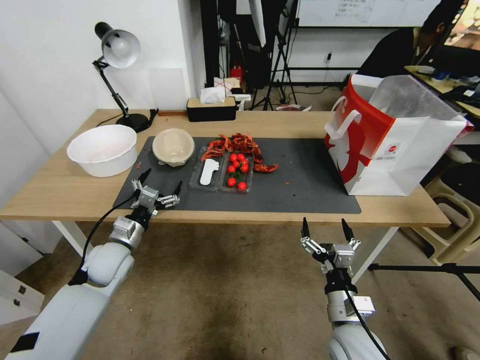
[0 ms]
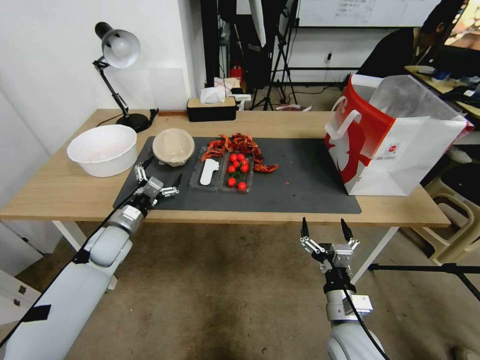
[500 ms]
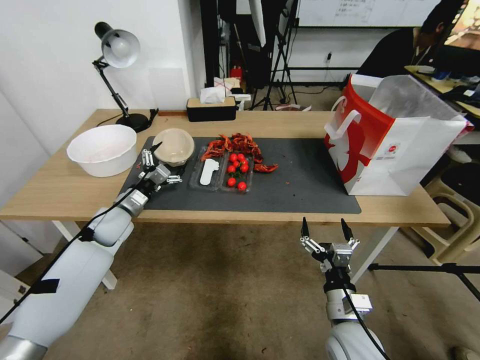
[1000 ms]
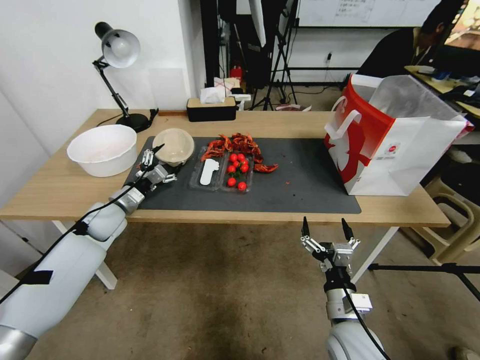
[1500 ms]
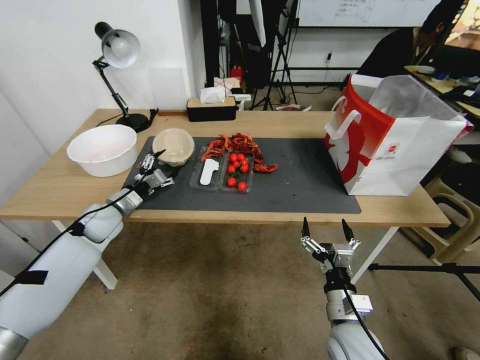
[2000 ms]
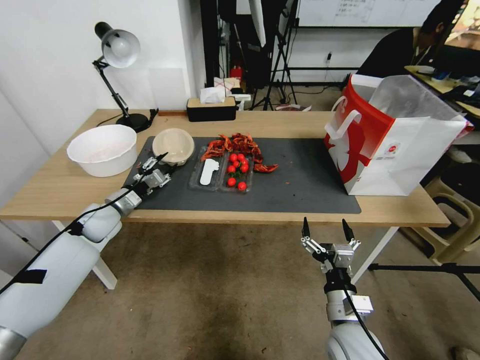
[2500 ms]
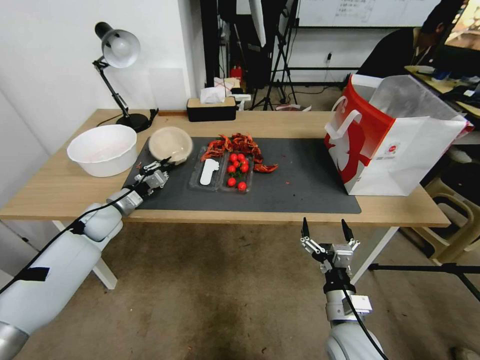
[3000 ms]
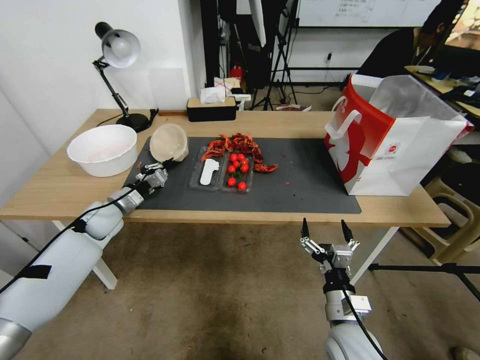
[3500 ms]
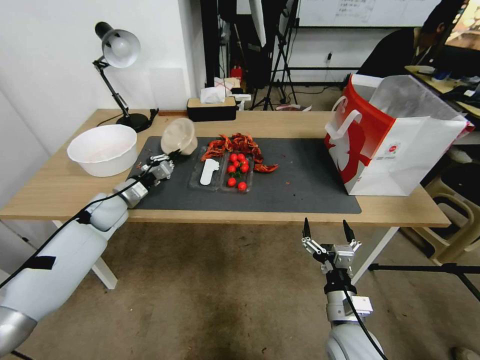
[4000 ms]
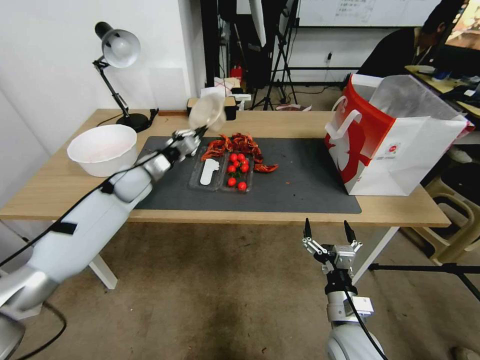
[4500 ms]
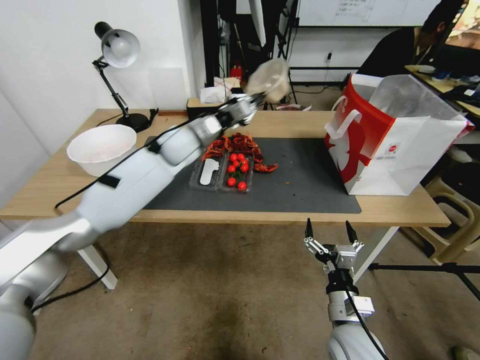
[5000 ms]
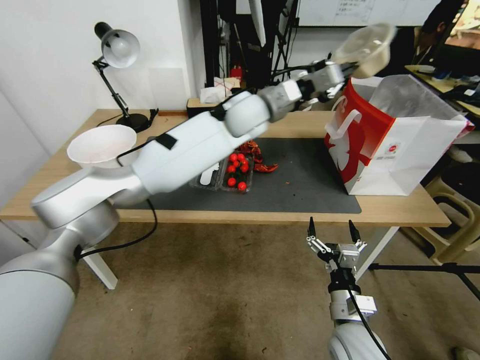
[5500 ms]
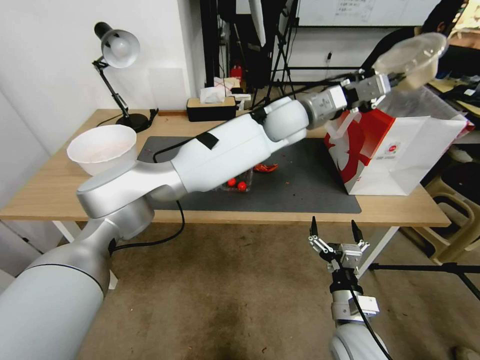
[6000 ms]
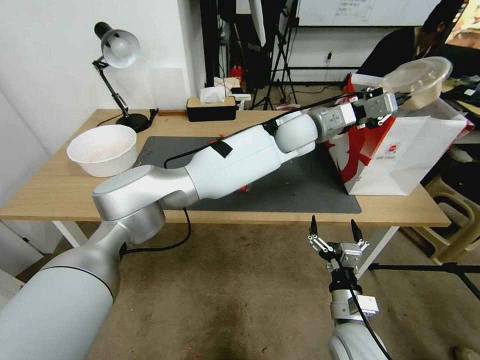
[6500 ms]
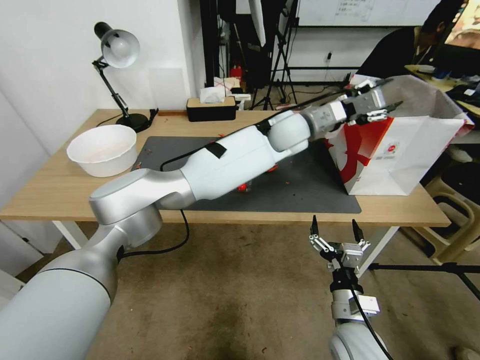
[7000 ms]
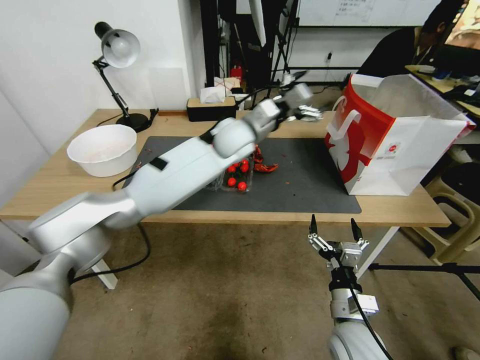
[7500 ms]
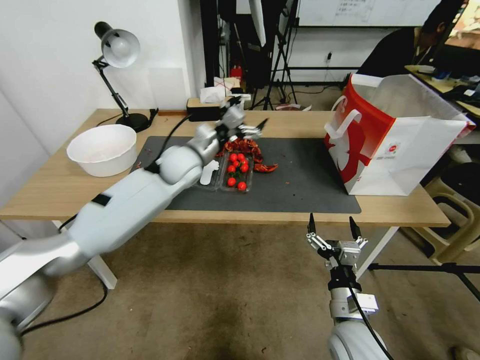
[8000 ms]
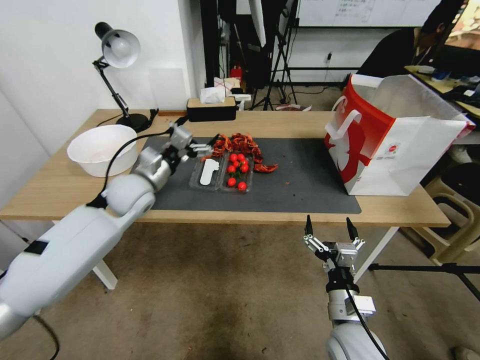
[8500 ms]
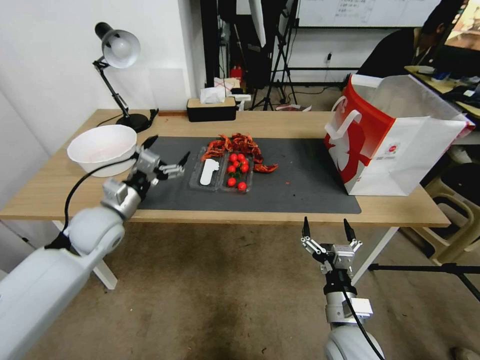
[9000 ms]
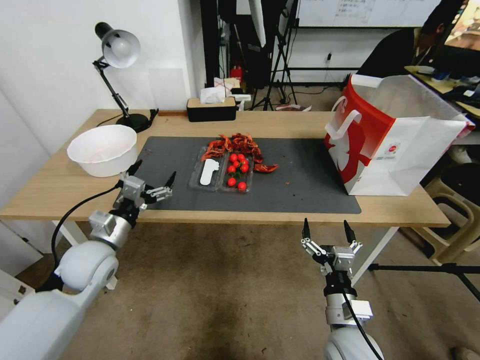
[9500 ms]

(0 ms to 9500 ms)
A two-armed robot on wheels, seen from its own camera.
0 ms - 2000 ms: The left gripper travels forward and to the left by some 10 cm.
2000 ms - 4000 ms: The left gripper closes up.
4000 ms - 5500 ms: The left gripper shifts roughly 40 cm to the right and upward.
5500 ms - 7500 ms: The left gripper travels downward by some 5 cm, travels to the right and back again, approximately 10 cm each way, and opens up.
7500 ms - 9500 ms: The left gripper goes roughly 40 cm to the left, backward and downward.

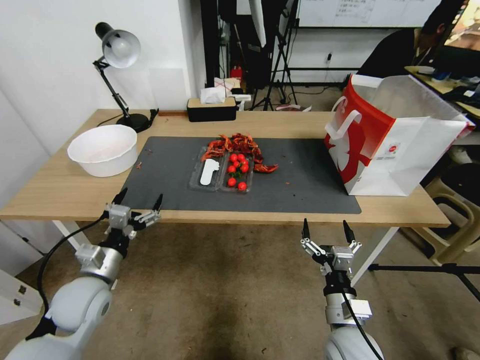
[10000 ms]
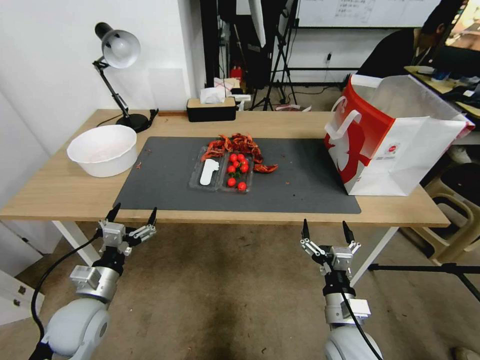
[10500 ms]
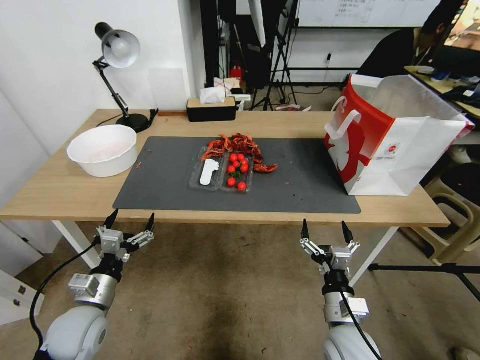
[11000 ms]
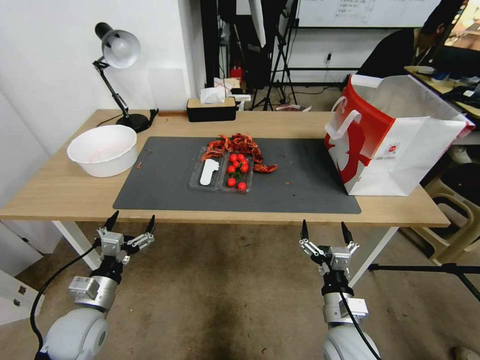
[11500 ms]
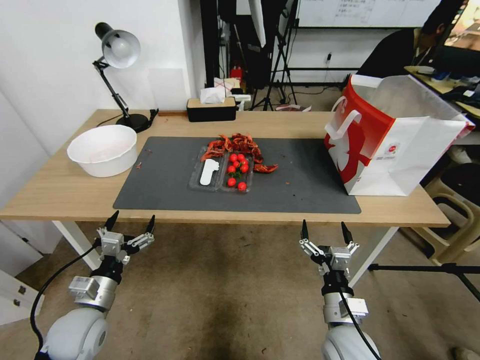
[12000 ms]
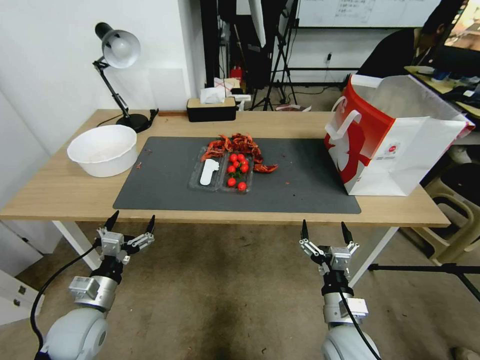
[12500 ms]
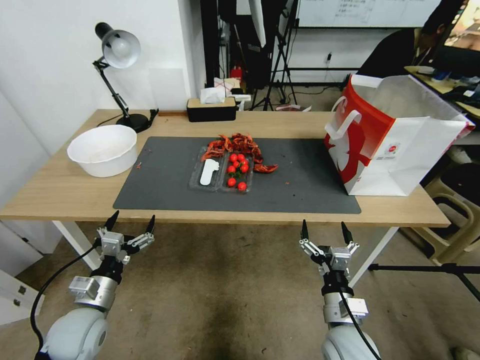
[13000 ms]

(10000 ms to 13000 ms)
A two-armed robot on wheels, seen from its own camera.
10000 ms - 11500 ms: The left gripper travels backward and downward by approximately 10 cm.
11500 ms - 13000 ms: Both grippers stay put.

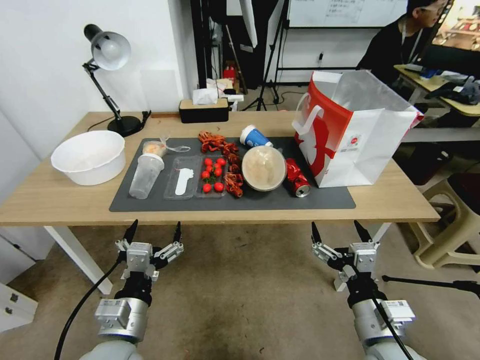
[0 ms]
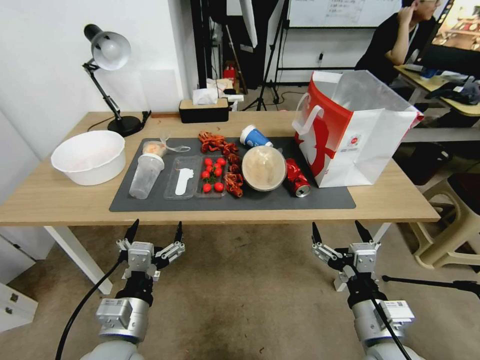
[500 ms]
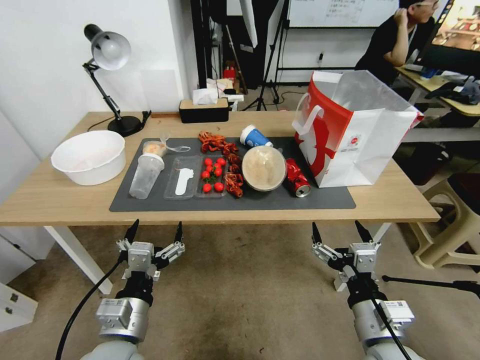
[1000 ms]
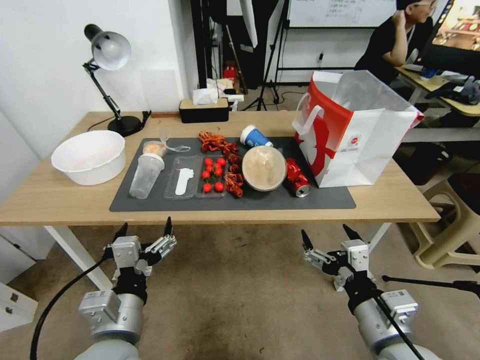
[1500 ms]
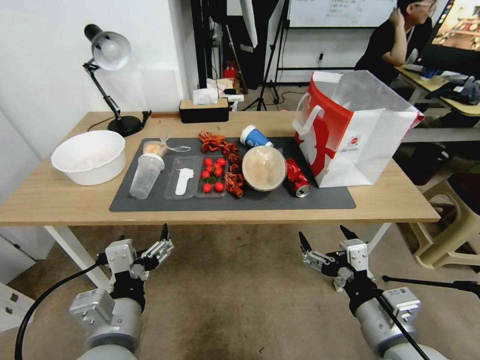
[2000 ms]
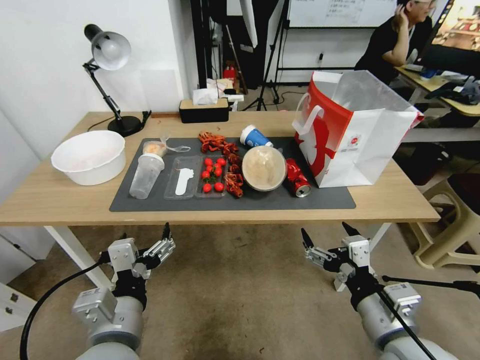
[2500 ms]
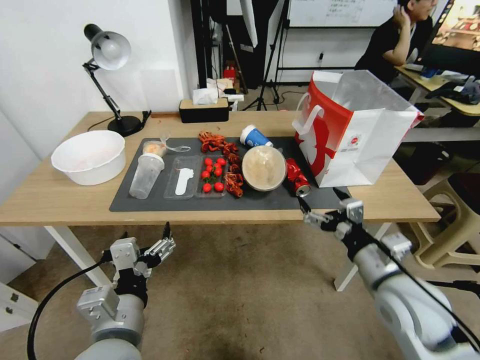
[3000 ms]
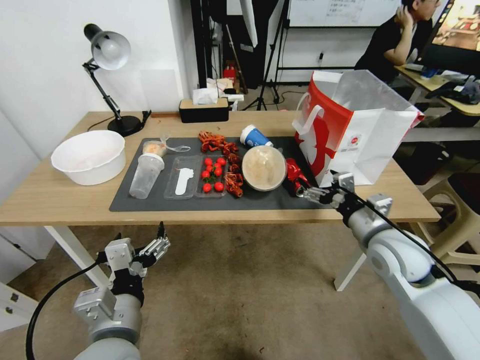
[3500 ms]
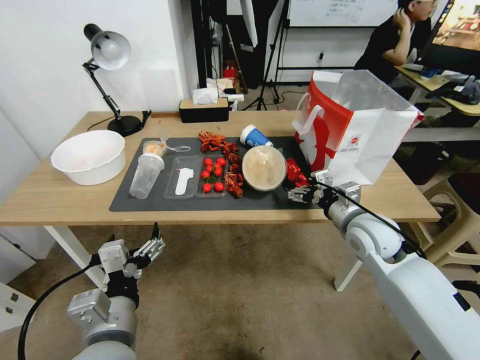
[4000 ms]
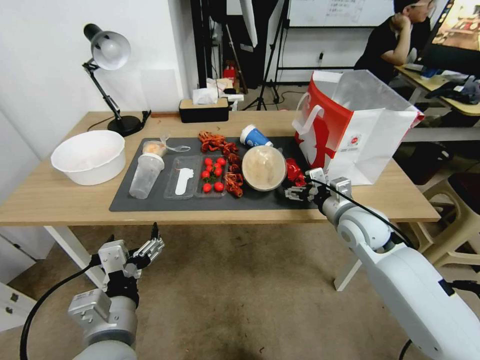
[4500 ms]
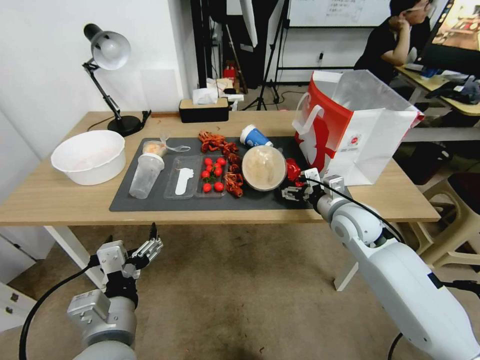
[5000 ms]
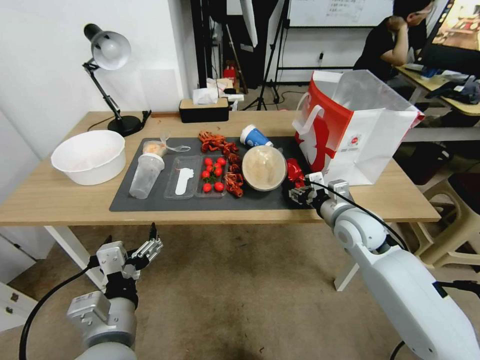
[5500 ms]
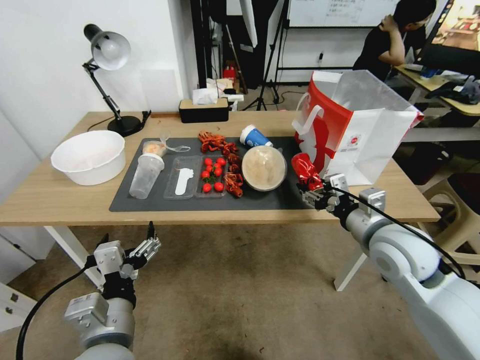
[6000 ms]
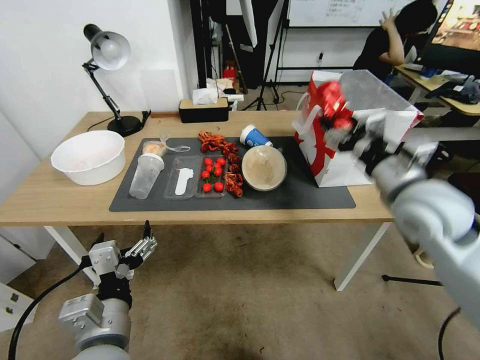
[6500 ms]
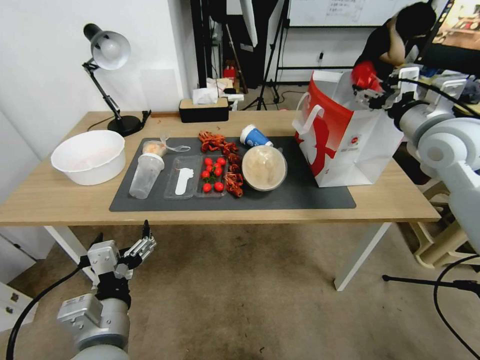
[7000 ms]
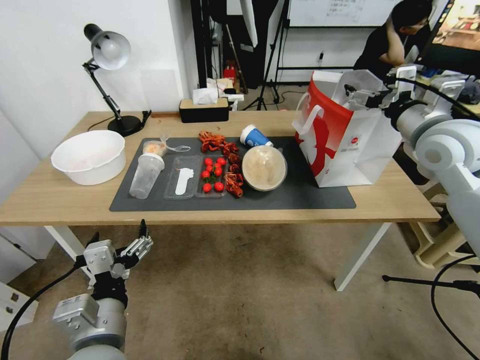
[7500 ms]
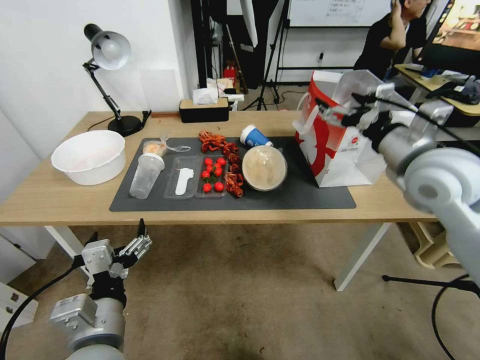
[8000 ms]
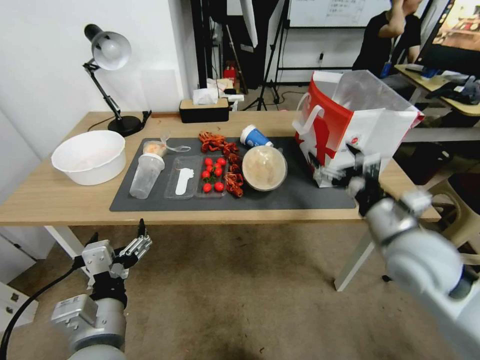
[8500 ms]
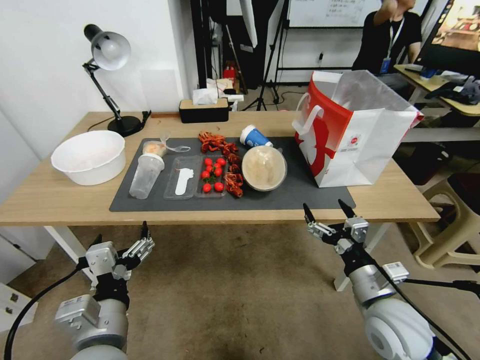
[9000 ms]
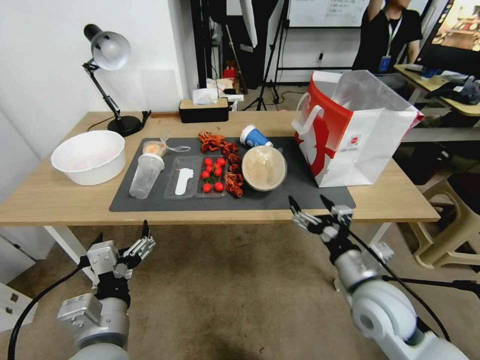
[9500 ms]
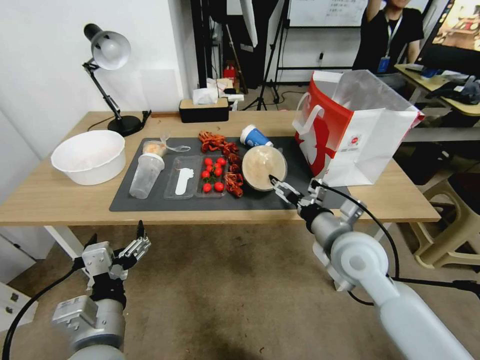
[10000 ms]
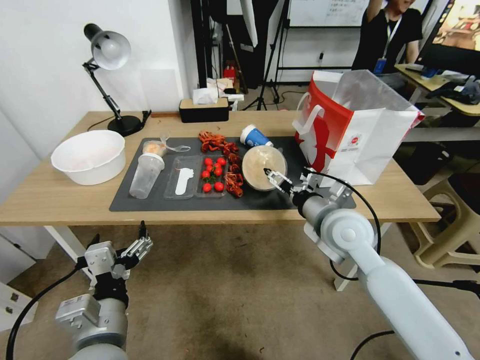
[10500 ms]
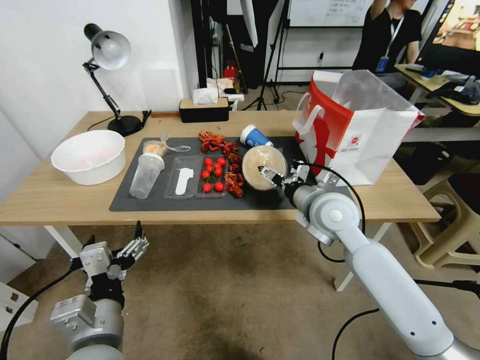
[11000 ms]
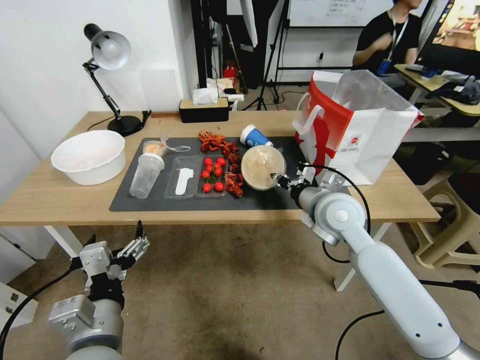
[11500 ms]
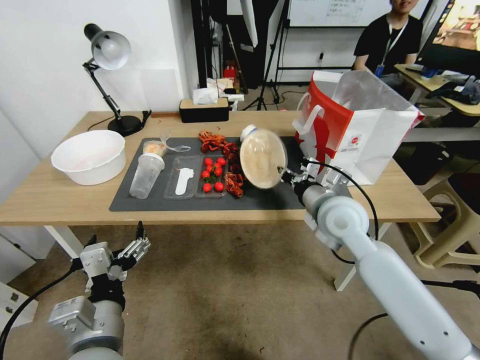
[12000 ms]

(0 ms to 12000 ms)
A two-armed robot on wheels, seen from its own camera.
2000 ms - 4000 ms: The right gripper moves forward, about 25 cm.
4000 ms - 6000 ms: The right gripper ends up roughly 5 cm from where it was, and closes up.
6000 ms - 8000 ms: The right gripper travels upward and forward by approximately 15 cm, and opens.
8000 ms - 10000 ms: The right gripper moves downward and to the left, roughly 20 cm.
10000 ms - 12000 ms: The right gripper heads forward, covering roughly 10 cm, and closes its fingers.

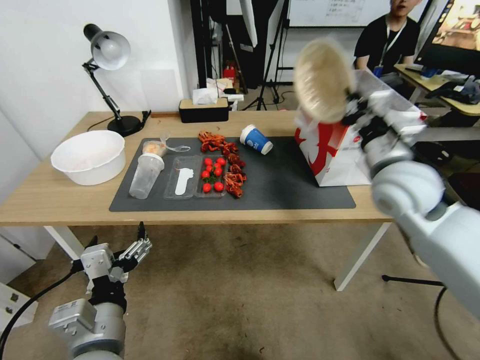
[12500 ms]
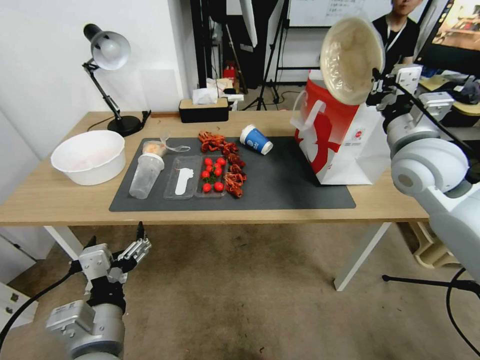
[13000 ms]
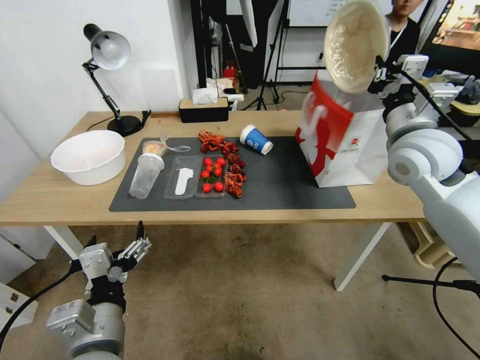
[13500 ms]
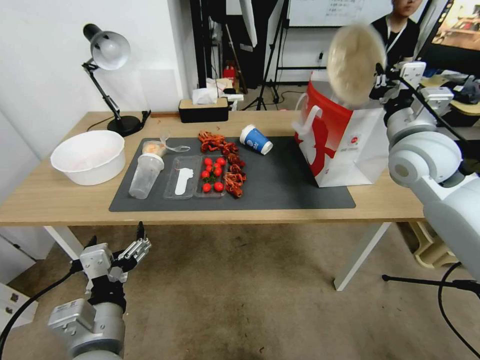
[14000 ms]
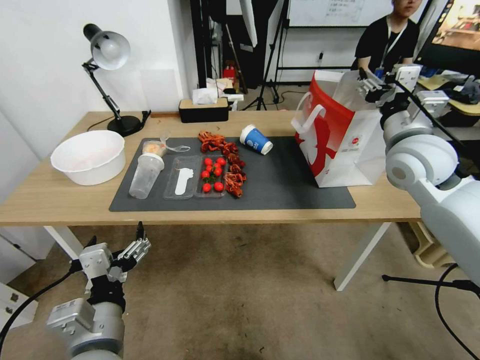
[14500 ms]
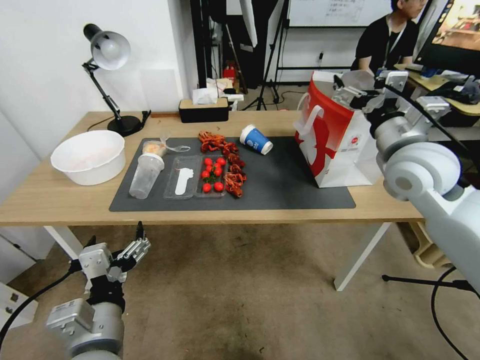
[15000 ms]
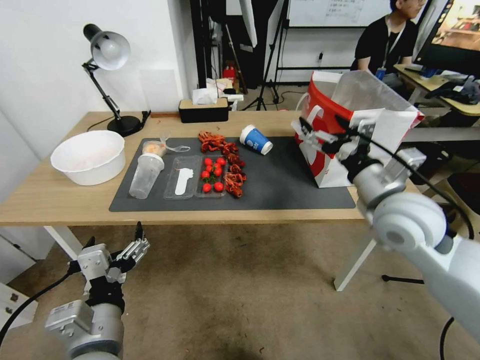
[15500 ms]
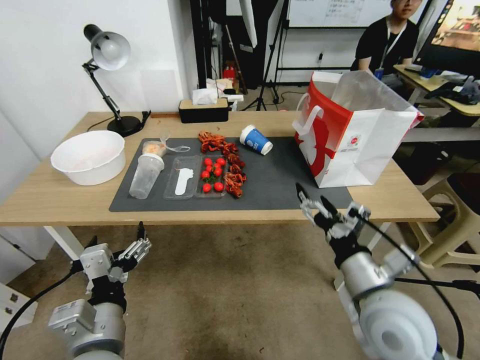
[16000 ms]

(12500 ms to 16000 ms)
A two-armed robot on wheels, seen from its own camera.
12500 ms - 14500 ms: The right gripper heads to the right, upward and forward, covering some 10 cm, and opens its fingers.
14500 ms - 16000 ms: The right gripper shifts some 25 cm backward and downward.